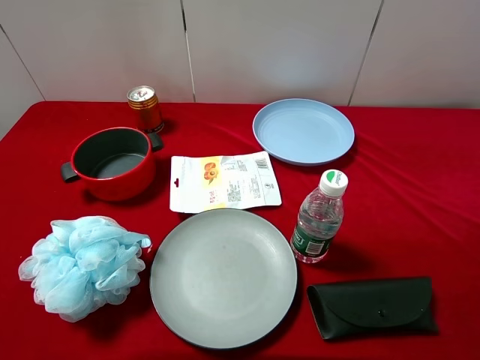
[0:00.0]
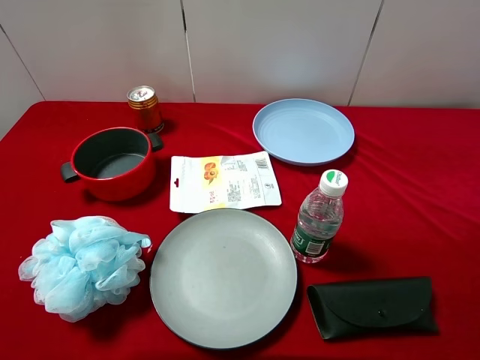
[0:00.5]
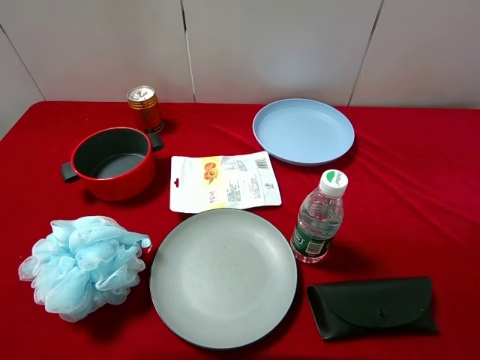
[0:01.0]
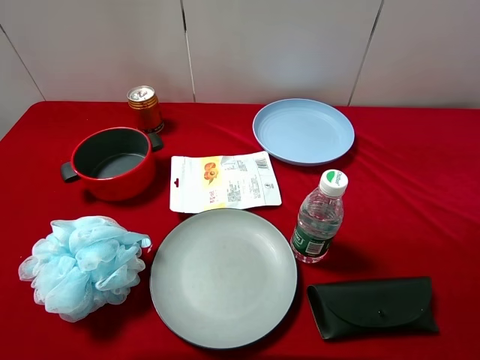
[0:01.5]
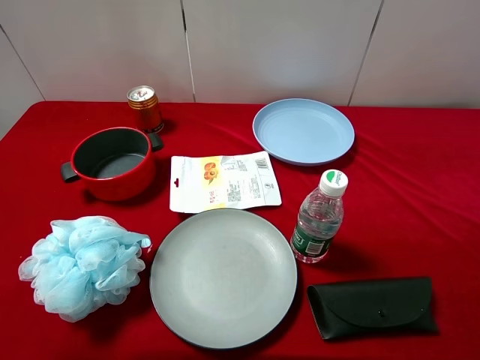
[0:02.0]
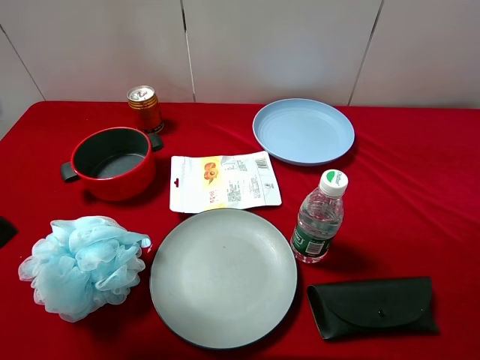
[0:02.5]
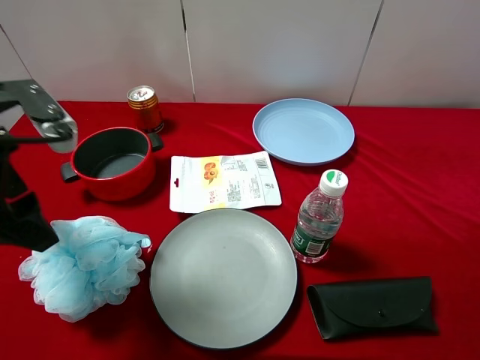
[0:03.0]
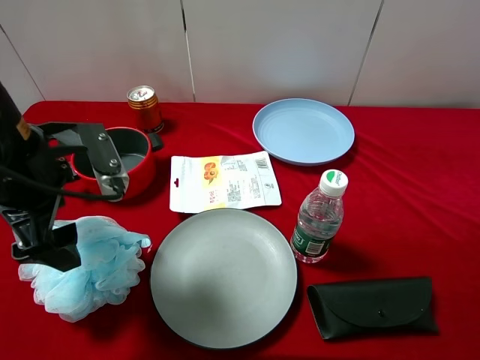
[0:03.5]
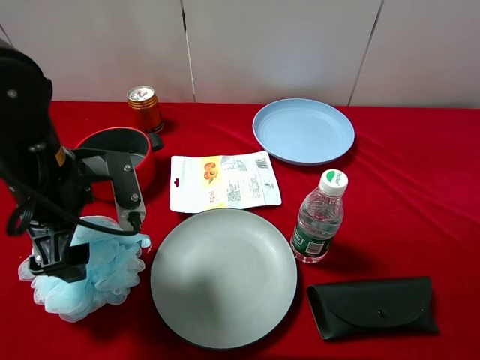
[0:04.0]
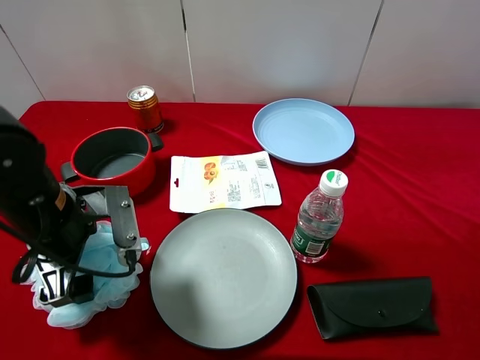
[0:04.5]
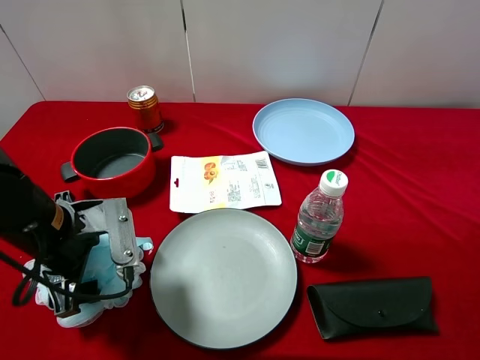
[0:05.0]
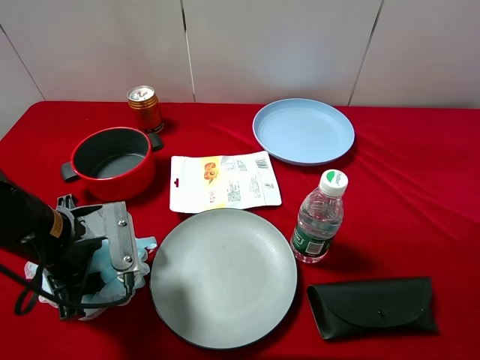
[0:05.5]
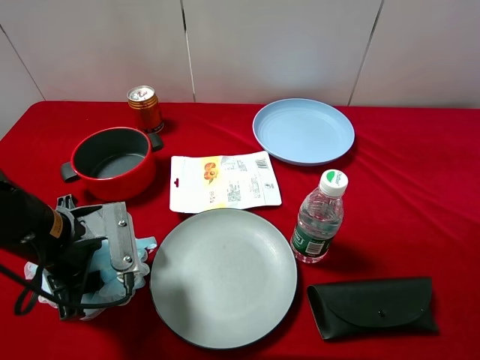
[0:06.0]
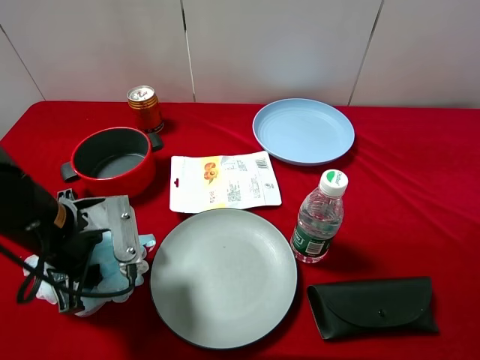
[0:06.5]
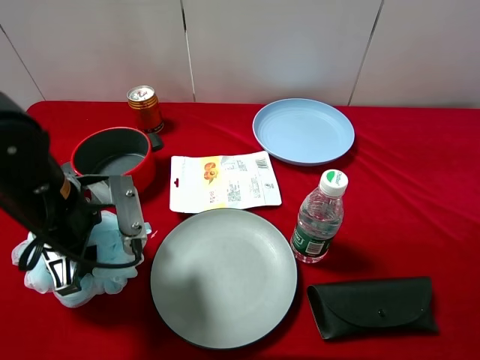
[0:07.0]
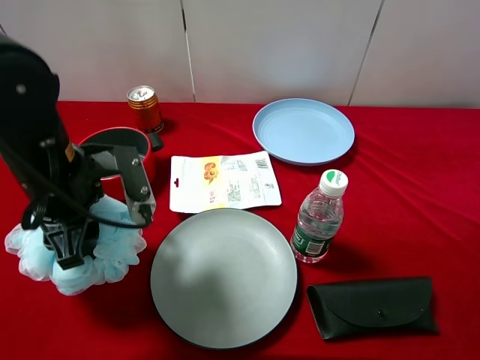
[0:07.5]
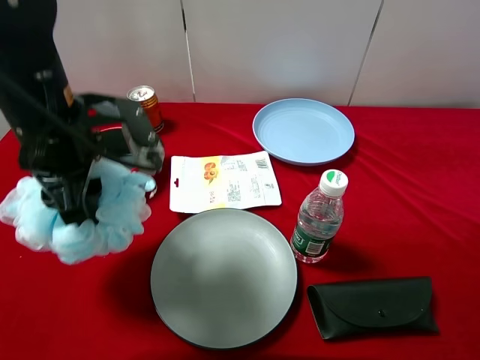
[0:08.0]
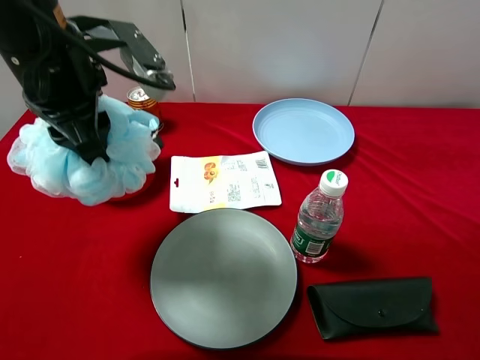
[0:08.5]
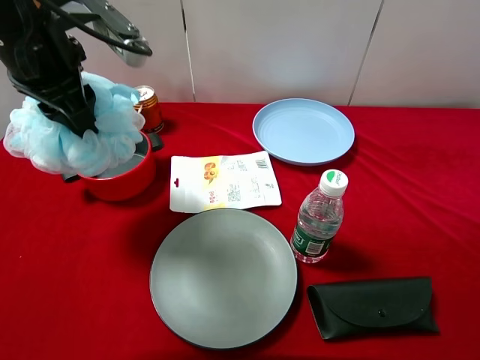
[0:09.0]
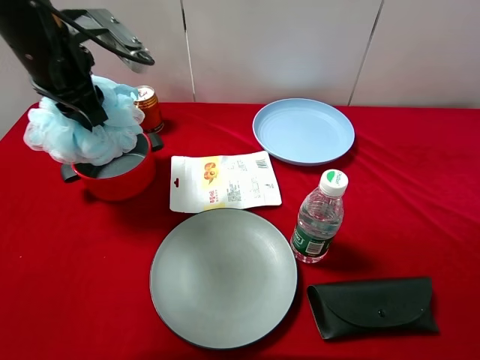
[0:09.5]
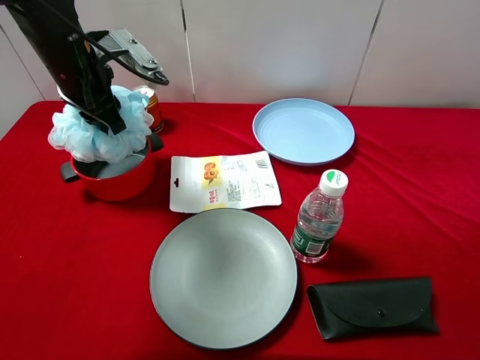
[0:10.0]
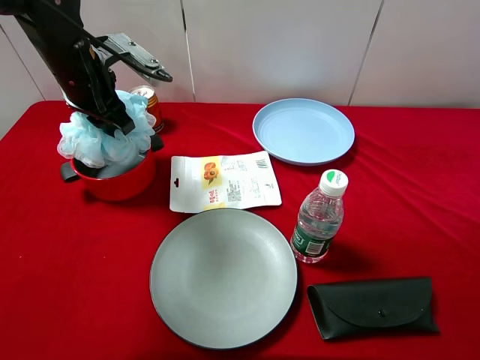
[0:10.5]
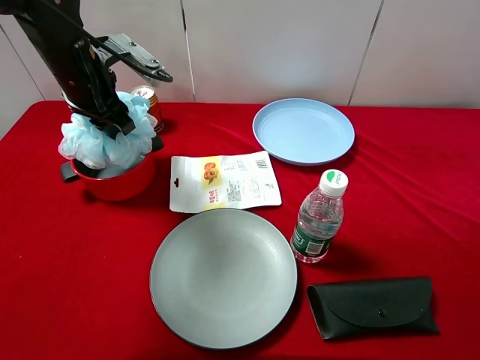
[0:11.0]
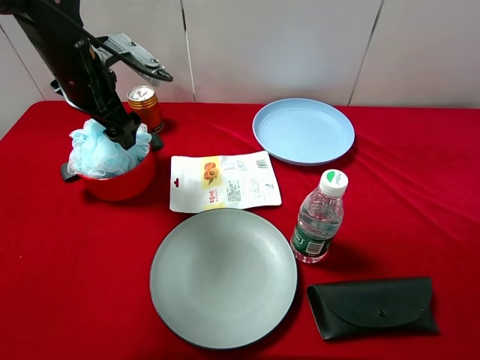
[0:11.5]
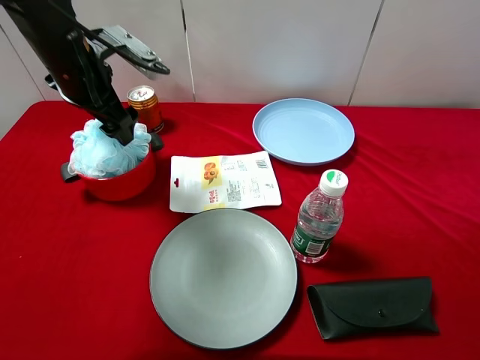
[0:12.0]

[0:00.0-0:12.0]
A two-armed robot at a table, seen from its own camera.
Task of the whole recording: pick up an item with a gripper and place it in a random container on the desktop.
0:02.0 to 0:04.0: The left gripper is displaced downward, forward and to the right by some 20 cm.
0:04.0 to 0:06.0: The left gripper is displaced downward by some 5 cm, and closes up.
0:06.0 to 0:08.0: The left gripper is displaced upward and forward by about 15 cm.
0:08.0 to 0:10.0: The left gripper shifts approximately 10 cm forward.
0:10.0 to 0:12.0: The left gripper opens up.

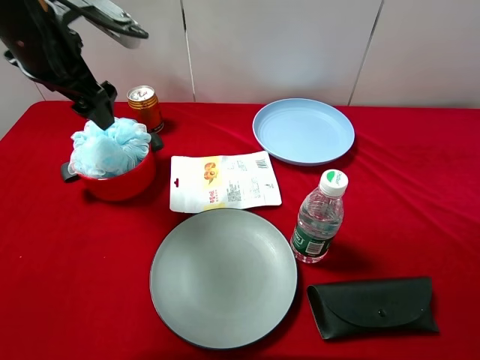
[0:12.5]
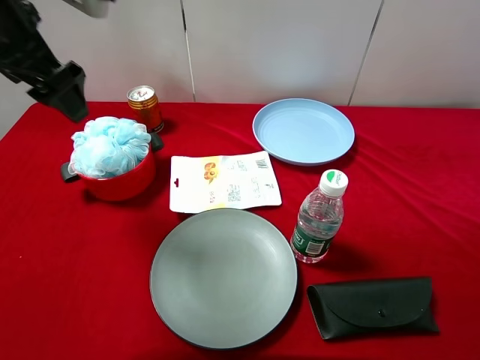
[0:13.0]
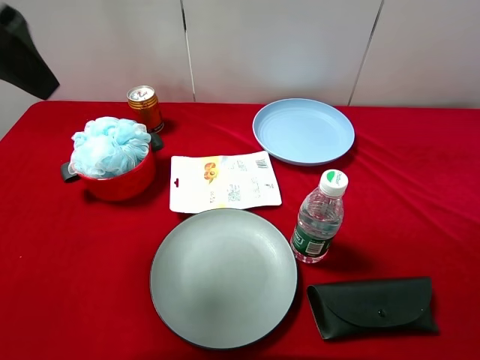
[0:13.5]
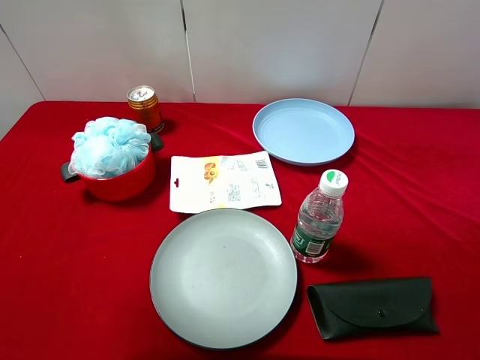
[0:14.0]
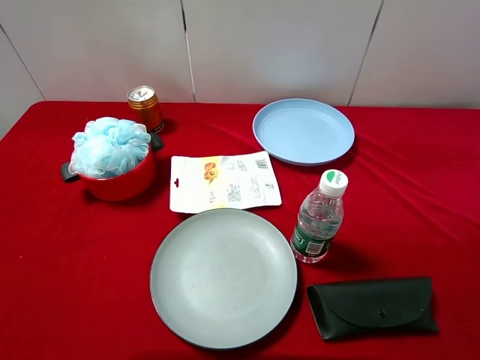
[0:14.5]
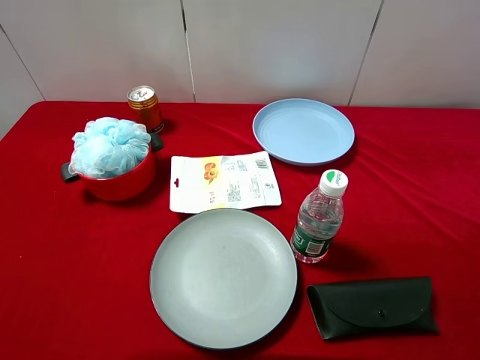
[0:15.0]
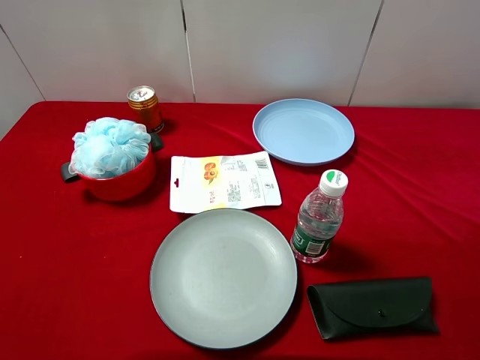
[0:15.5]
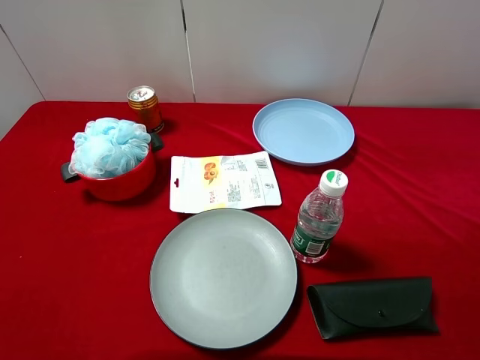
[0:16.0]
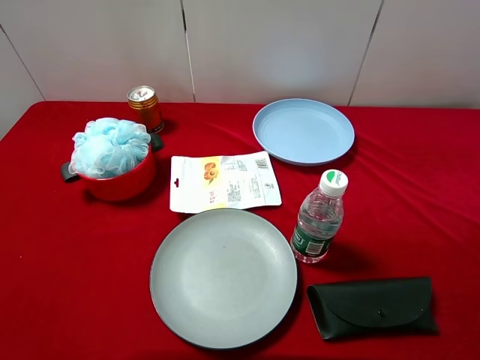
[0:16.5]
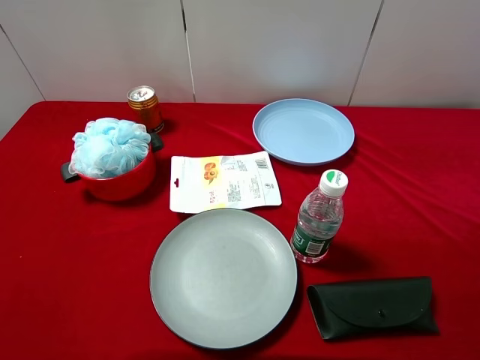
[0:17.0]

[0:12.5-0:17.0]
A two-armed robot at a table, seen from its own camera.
Task of the whole recording: pick up an item with a gripper and place it in a random container on the desktop.
0:12.5 to 0:14.5: The left gripper moves backward, about 30 cm.
